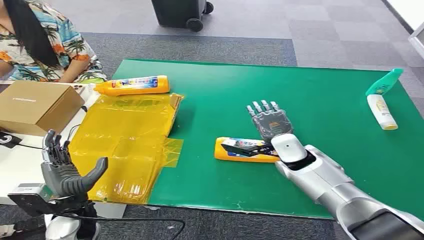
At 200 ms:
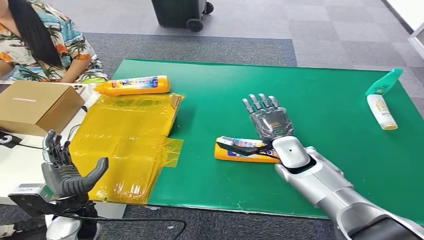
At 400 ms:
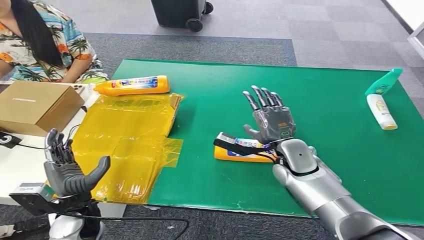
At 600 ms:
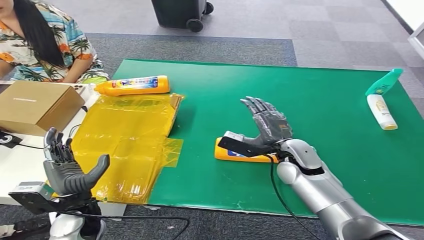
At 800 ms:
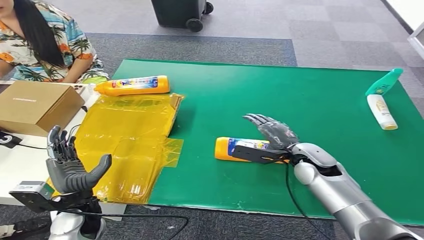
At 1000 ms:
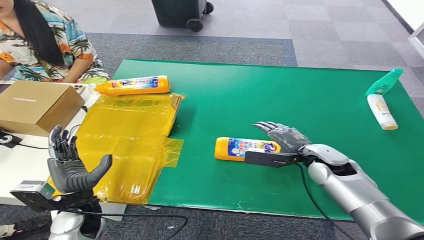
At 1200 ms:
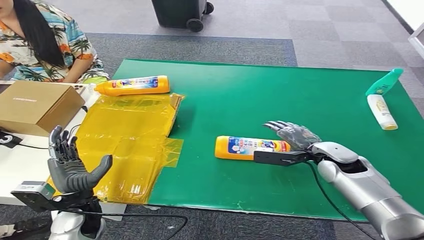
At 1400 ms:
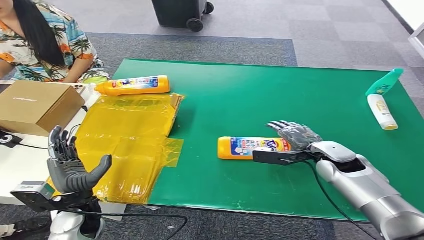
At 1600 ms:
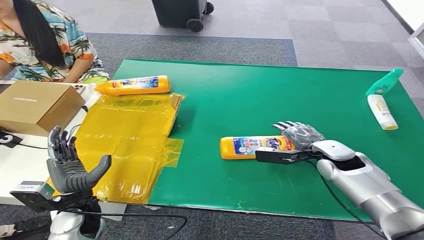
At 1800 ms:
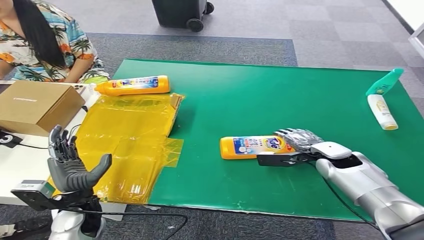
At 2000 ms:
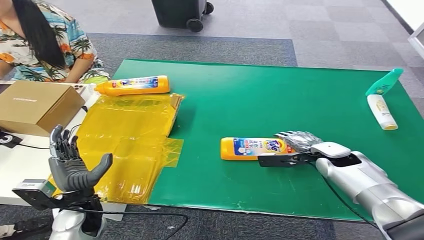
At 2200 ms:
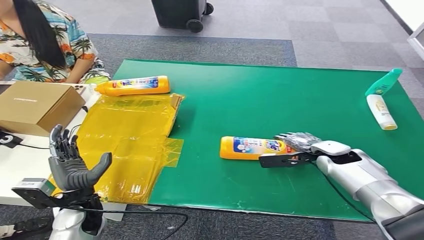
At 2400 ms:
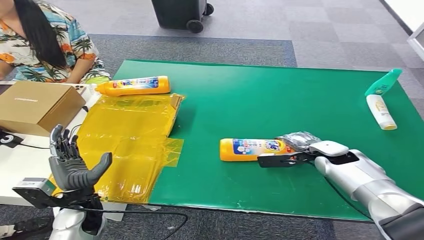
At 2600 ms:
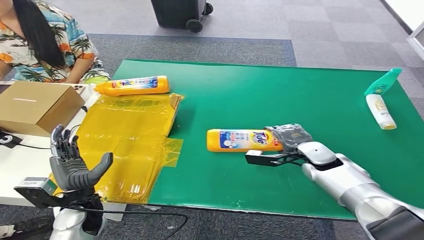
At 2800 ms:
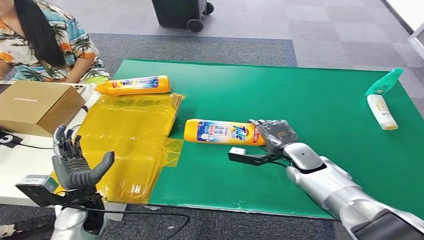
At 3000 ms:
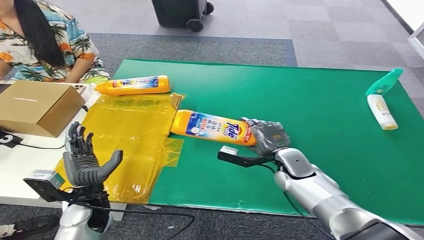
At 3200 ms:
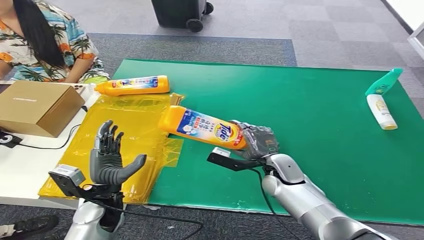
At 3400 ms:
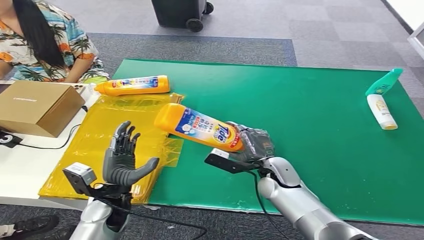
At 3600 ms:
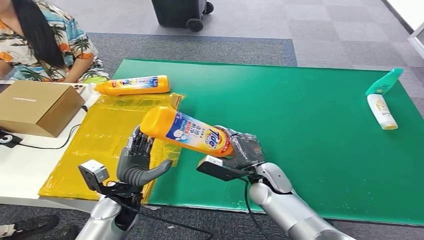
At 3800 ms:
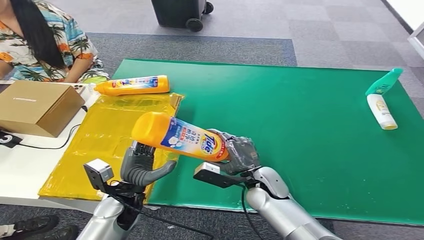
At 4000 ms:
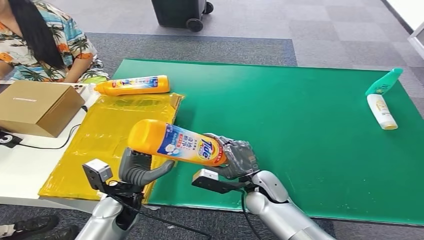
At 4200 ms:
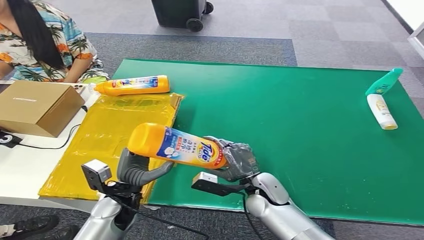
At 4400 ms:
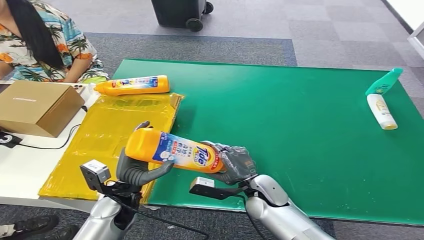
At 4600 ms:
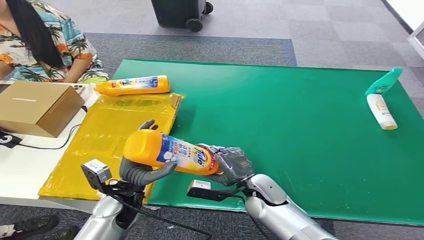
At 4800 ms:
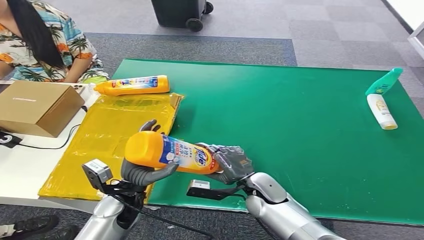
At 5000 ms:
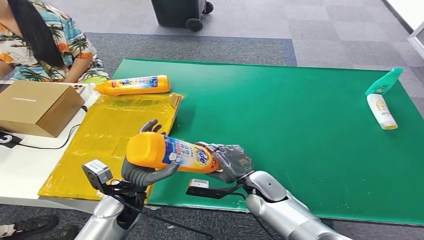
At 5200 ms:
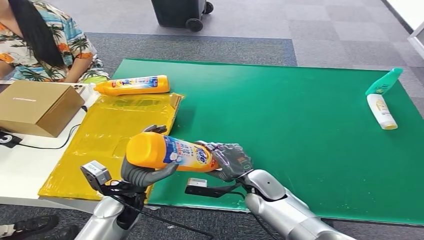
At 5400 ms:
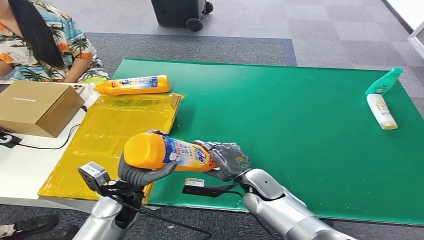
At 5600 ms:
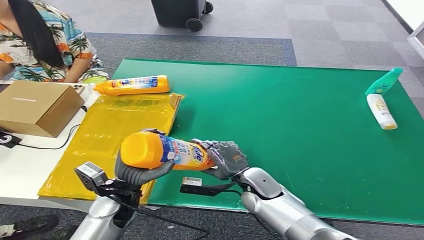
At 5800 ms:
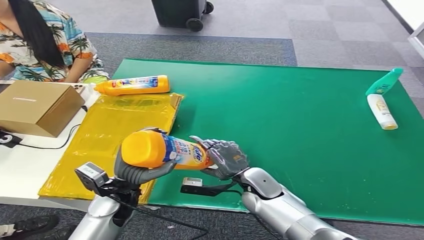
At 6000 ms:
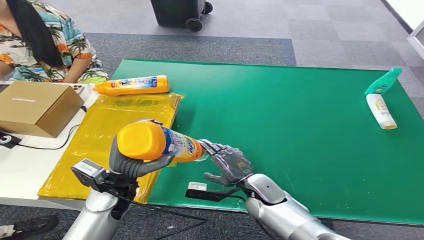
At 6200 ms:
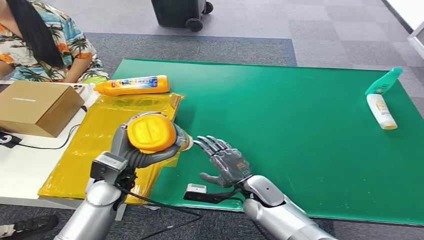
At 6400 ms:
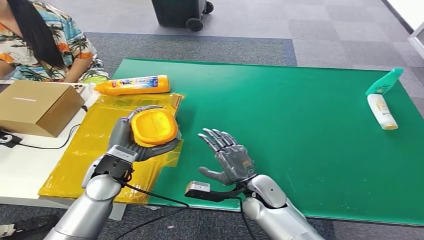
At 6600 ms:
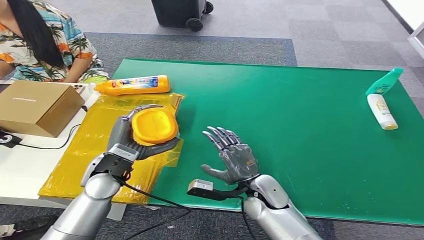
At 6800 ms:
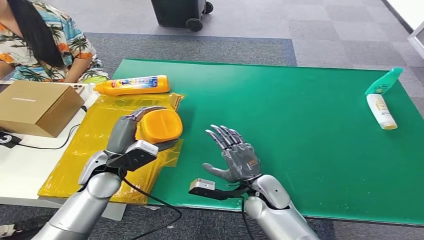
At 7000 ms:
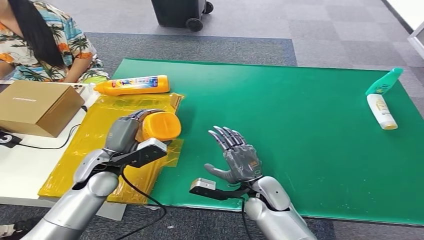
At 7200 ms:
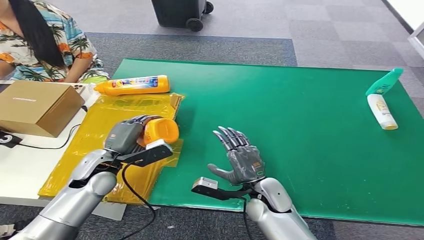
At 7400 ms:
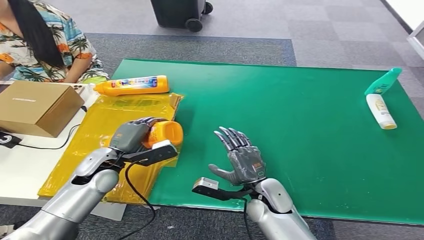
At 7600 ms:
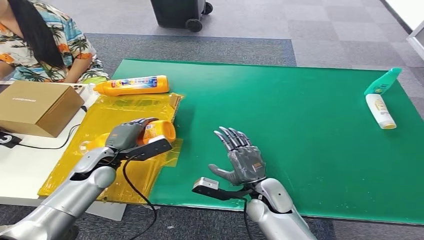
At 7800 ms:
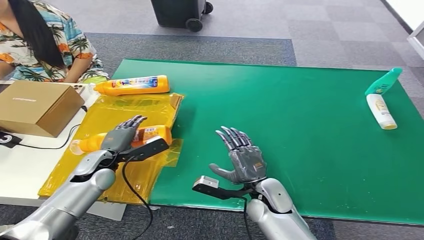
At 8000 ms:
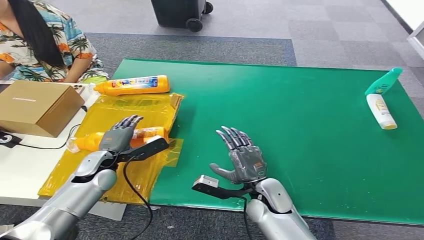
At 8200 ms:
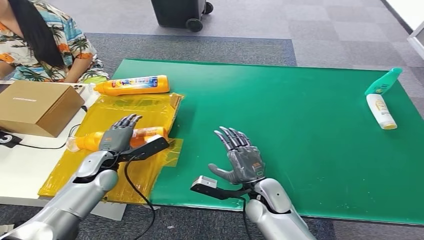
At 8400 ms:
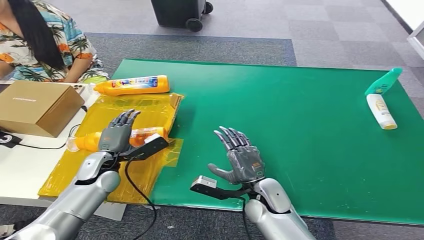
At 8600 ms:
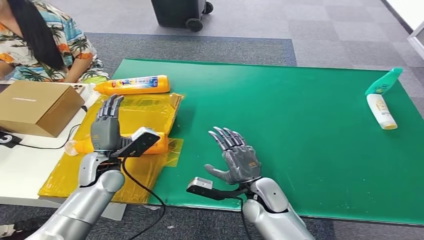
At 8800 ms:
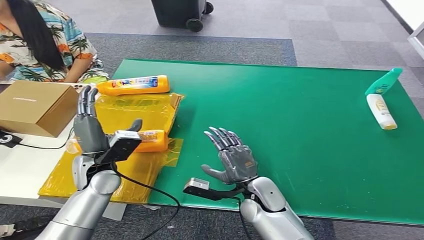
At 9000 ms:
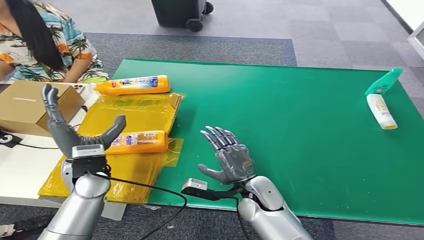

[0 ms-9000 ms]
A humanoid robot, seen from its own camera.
Step, 0 ms to 3200 ms: Pick up the bottle from the table.
Step, 3400 ms to 8800 ms: Turn the bottle to the front side.
4400 ms to 6000 ms: The hands make only small movements.
6000 ms to 7600 ms: The left hand shifts some 10 cm to the left and forward.
7600 ms to 9000 ms: The left hand moves upward, about 5 cm.

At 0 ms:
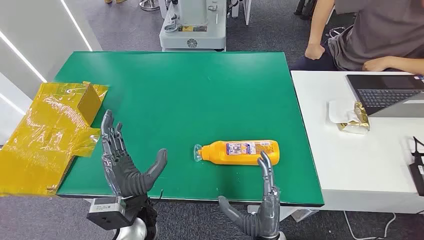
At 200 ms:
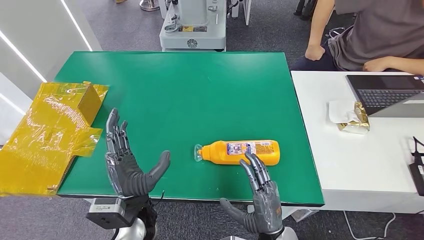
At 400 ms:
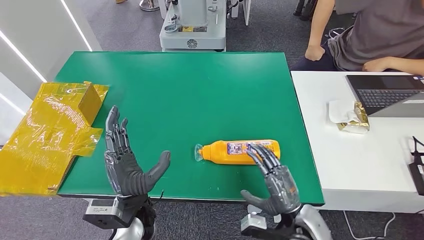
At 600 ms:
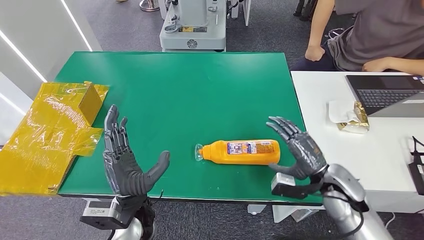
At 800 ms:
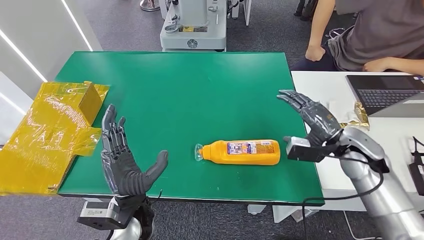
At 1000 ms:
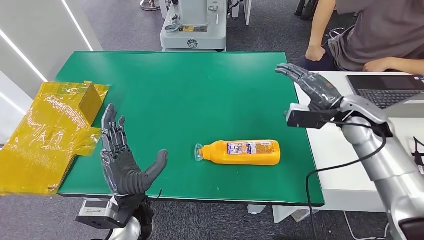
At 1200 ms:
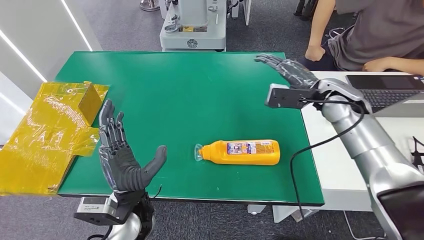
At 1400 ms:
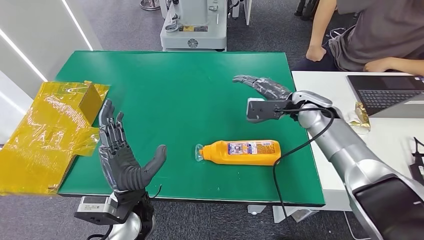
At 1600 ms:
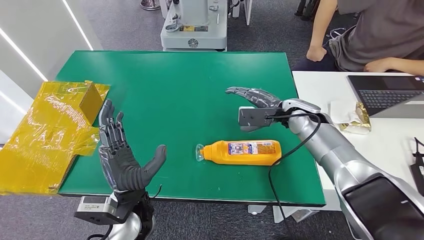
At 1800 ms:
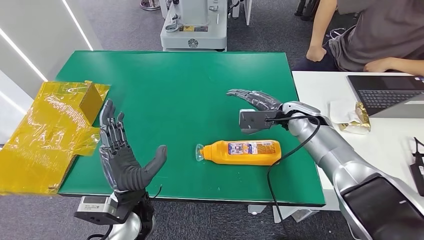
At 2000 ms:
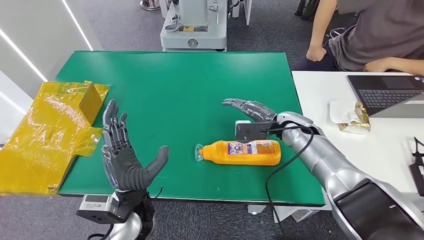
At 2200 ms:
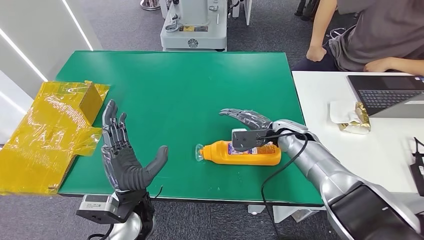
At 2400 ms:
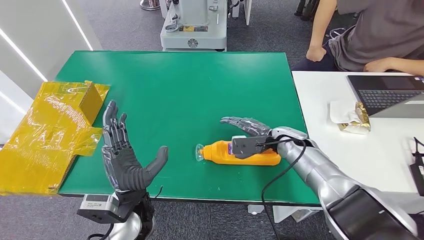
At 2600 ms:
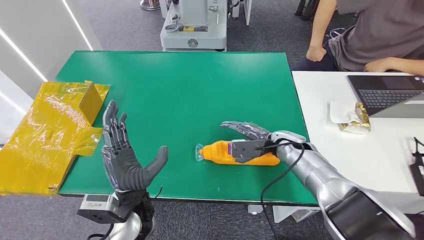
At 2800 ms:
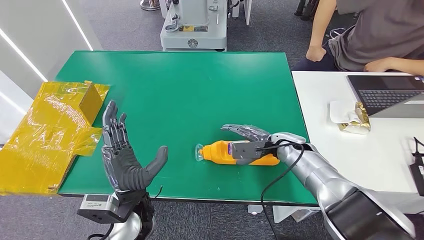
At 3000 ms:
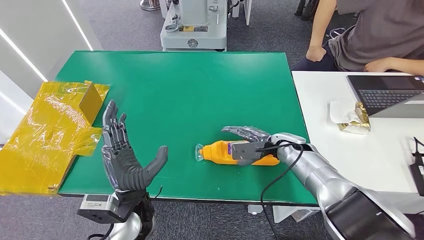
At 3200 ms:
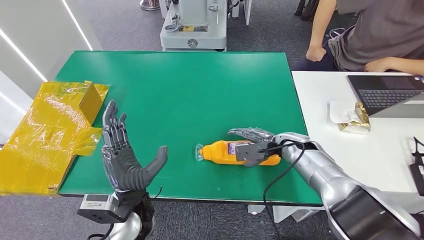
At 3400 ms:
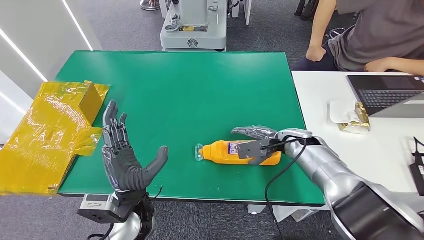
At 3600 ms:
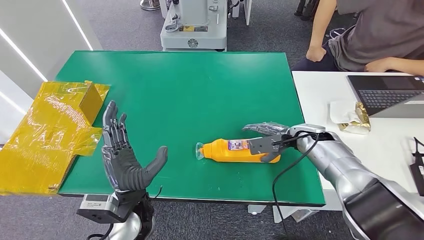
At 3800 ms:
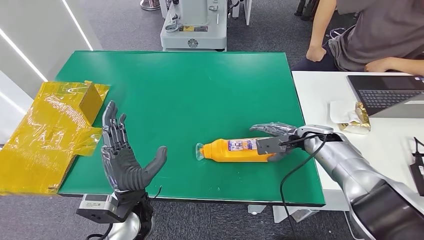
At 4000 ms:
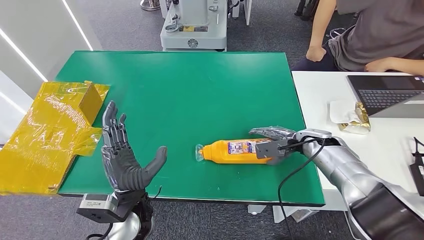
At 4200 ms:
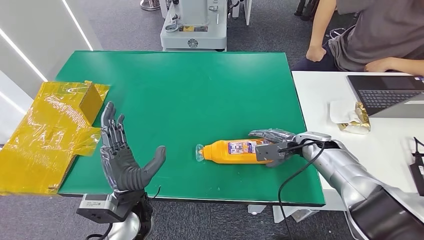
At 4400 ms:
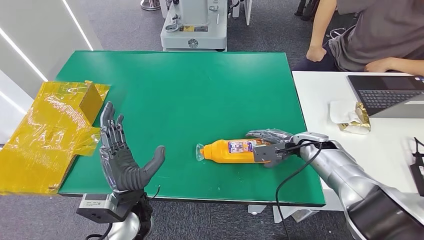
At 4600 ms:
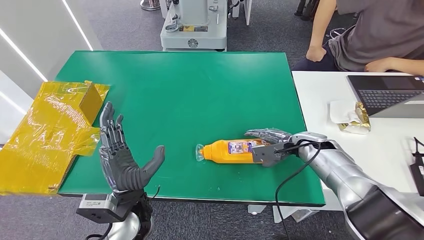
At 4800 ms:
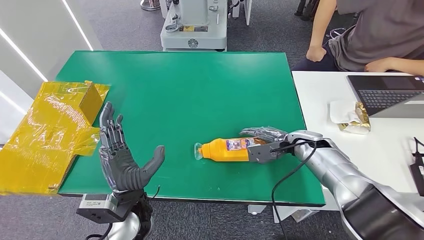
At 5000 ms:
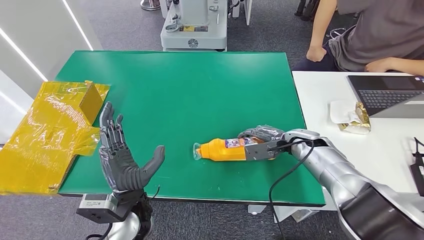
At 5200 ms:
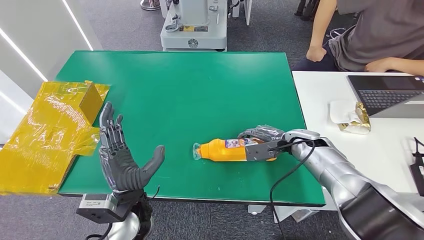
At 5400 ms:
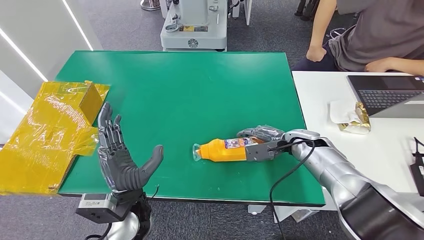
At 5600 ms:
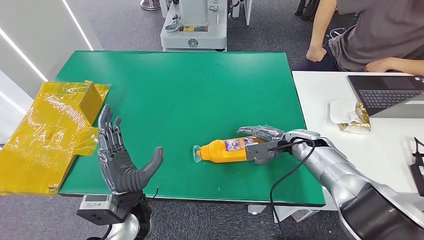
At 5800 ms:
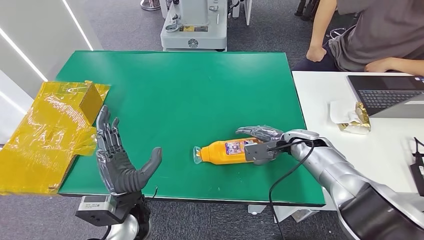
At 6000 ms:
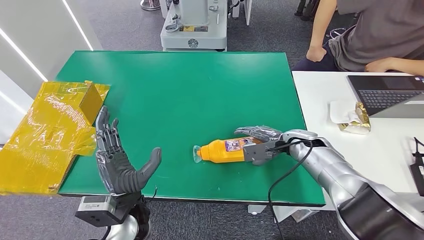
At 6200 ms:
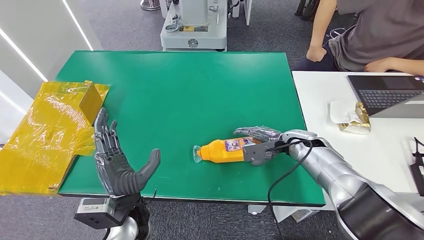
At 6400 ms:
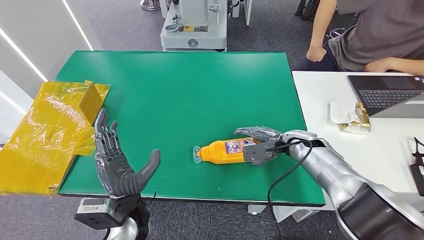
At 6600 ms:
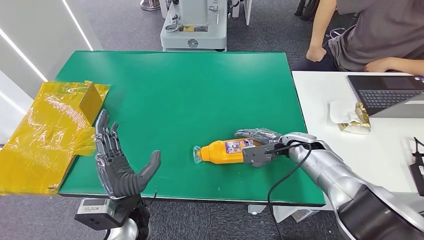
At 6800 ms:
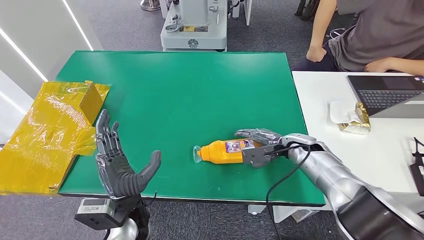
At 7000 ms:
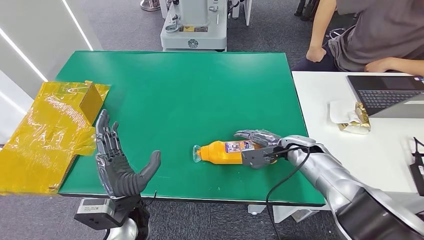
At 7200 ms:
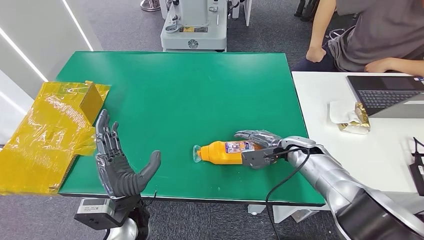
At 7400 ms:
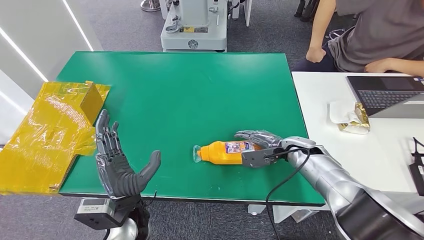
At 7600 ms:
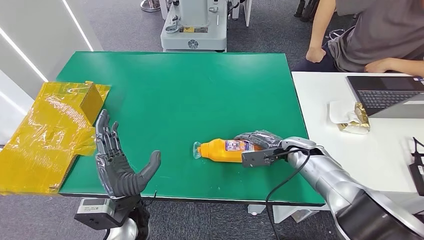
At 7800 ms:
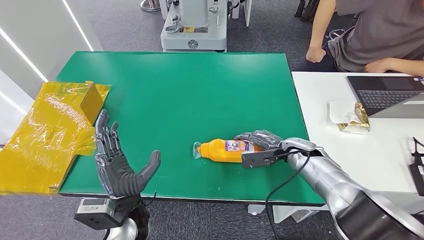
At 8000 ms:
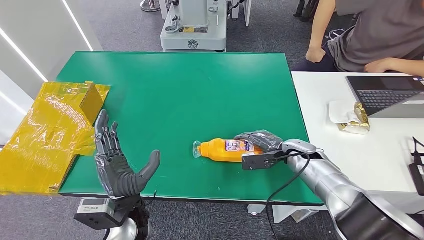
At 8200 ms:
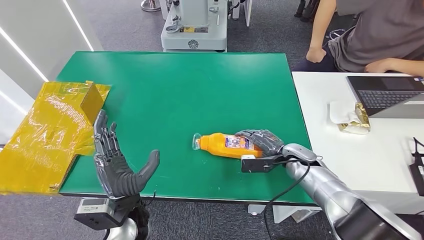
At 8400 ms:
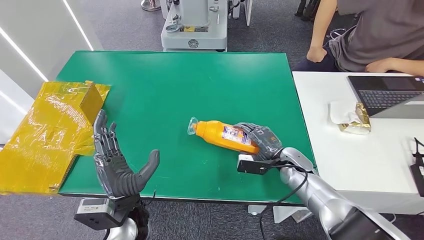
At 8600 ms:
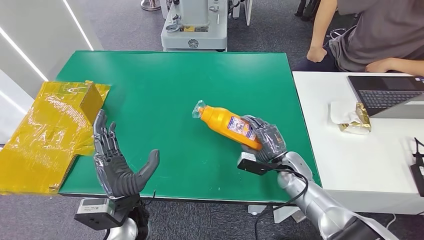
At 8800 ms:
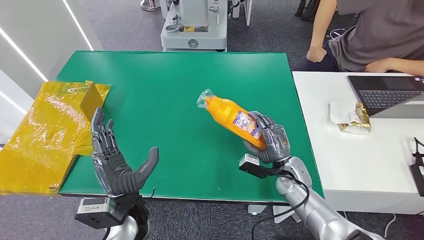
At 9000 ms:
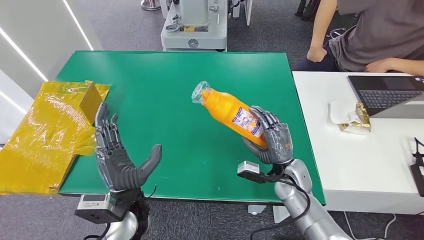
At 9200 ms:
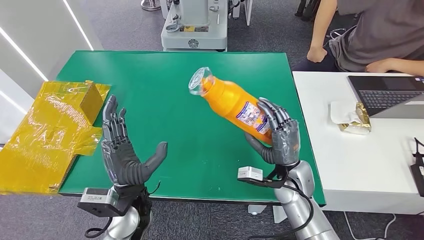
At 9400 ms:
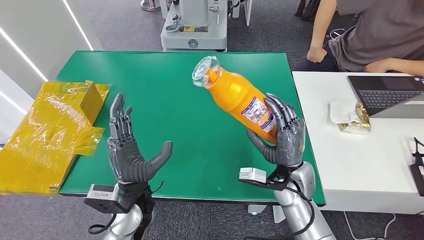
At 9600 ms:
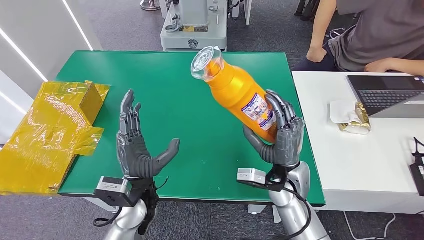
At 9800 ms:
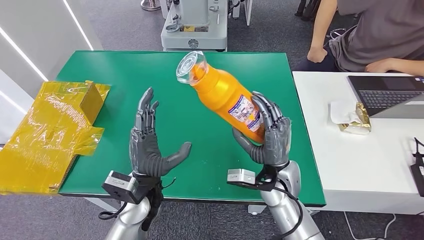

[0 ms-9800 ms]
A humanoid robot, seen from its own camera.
1400 ms to 2800 ms: The right hand heads downward, covering some 10 cm.
2800 ms to 4200 ms: The right hand moves to the right, approximately 10 cm.
4200 ms to 7000 ms: There are only small adjustments of the hands.
7000 ms to 8400 ms: The right hand shifts by about 5 cm.
8400 ms to 9800 ms: The right hand shifts some 15 cm to the left, upward and backward; the left hand ends up some 5 cm from where it was.
